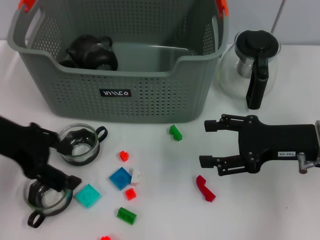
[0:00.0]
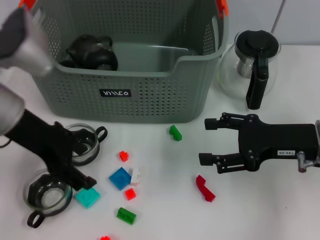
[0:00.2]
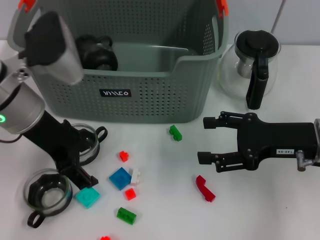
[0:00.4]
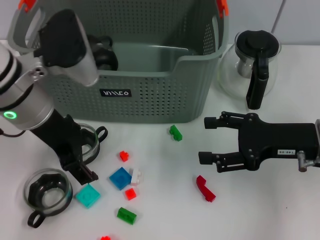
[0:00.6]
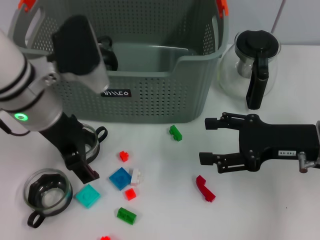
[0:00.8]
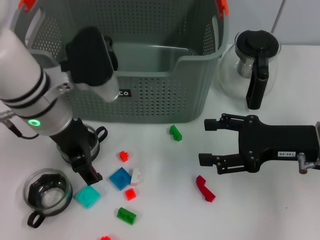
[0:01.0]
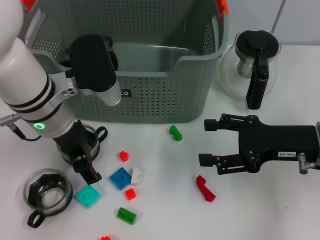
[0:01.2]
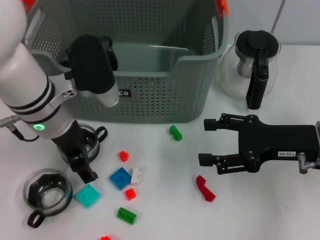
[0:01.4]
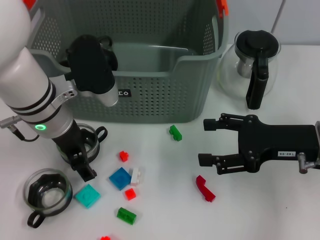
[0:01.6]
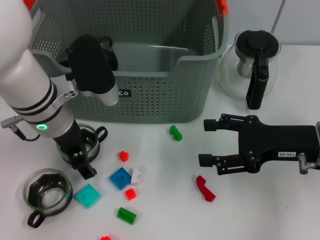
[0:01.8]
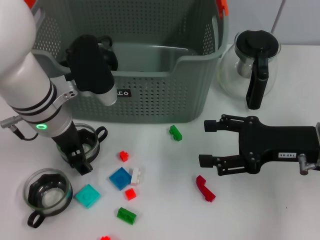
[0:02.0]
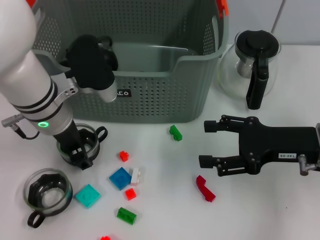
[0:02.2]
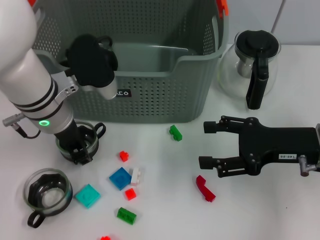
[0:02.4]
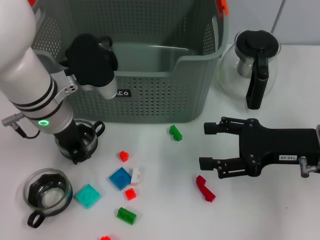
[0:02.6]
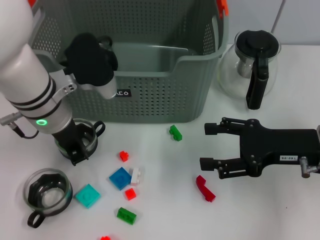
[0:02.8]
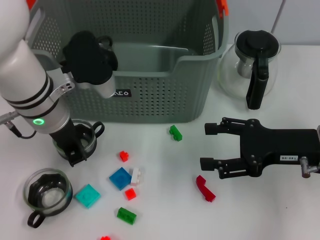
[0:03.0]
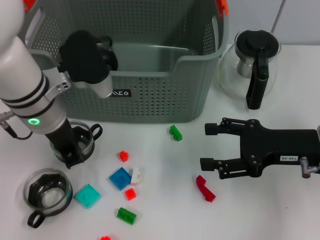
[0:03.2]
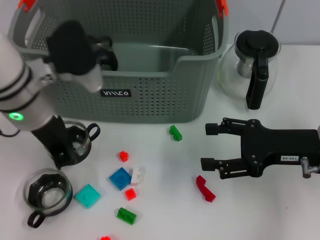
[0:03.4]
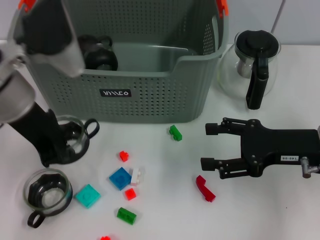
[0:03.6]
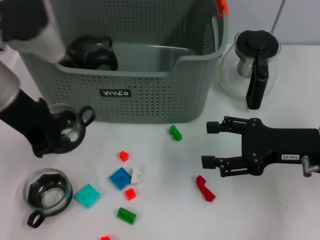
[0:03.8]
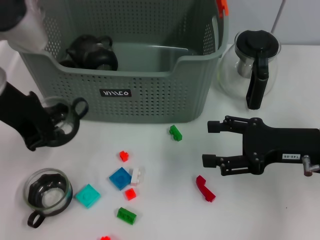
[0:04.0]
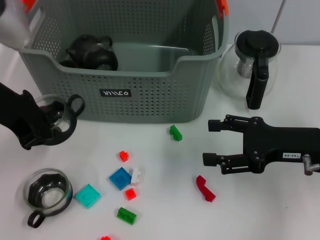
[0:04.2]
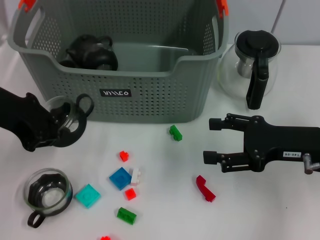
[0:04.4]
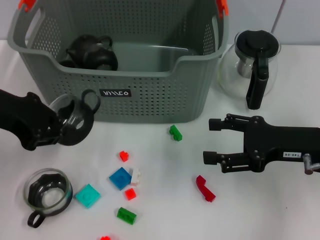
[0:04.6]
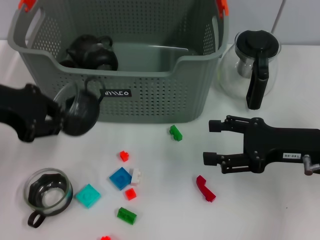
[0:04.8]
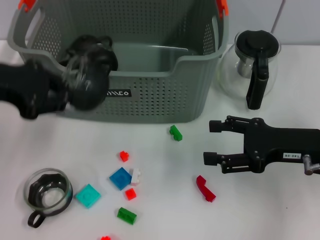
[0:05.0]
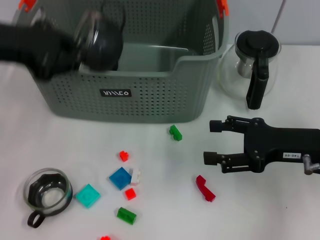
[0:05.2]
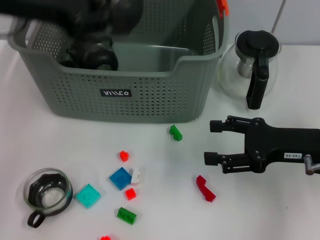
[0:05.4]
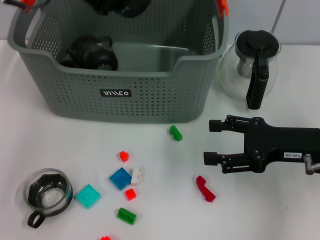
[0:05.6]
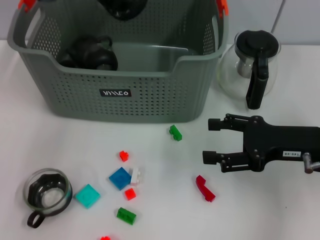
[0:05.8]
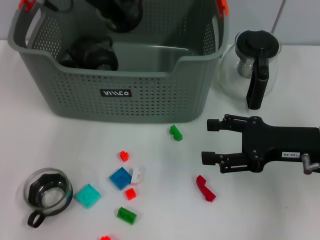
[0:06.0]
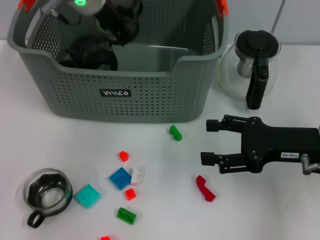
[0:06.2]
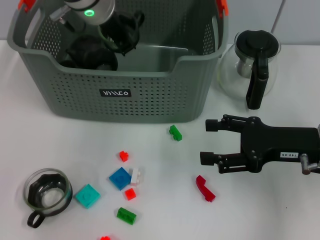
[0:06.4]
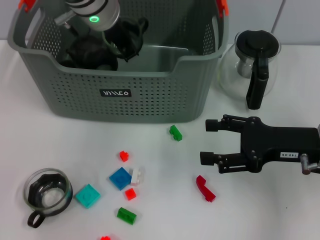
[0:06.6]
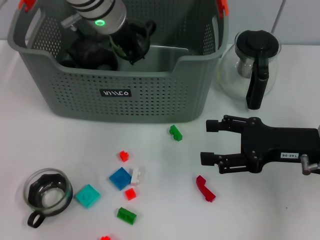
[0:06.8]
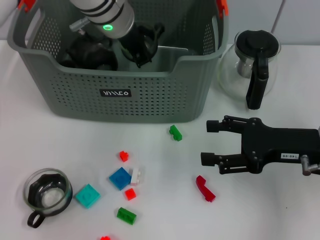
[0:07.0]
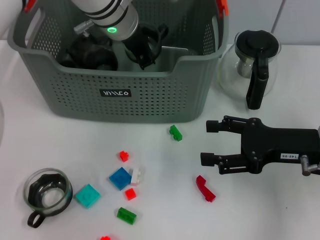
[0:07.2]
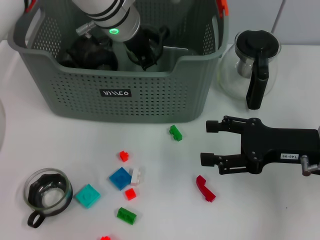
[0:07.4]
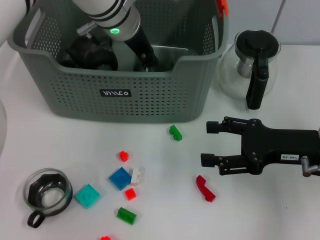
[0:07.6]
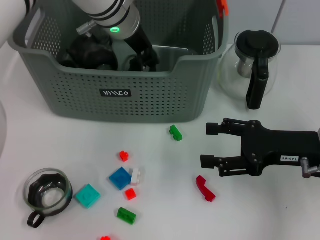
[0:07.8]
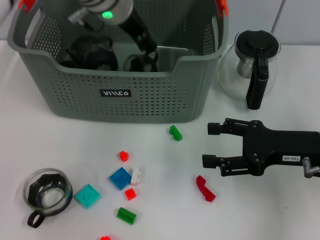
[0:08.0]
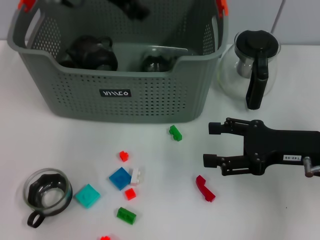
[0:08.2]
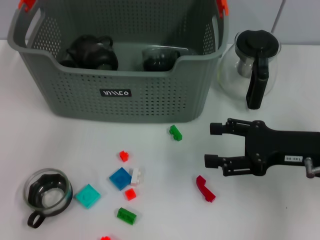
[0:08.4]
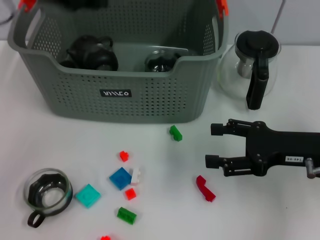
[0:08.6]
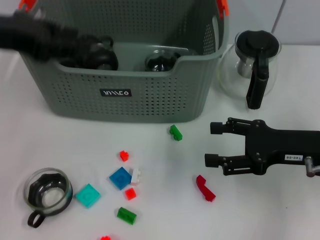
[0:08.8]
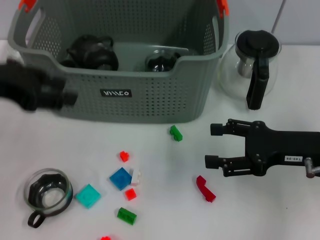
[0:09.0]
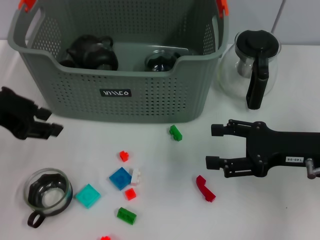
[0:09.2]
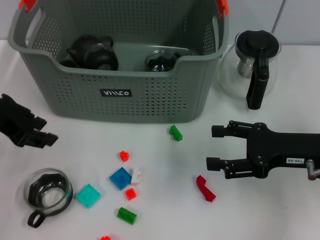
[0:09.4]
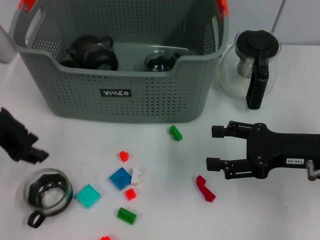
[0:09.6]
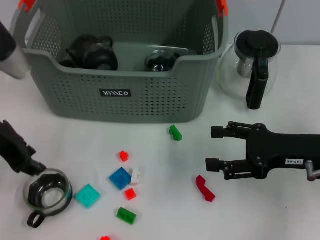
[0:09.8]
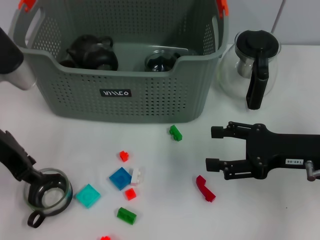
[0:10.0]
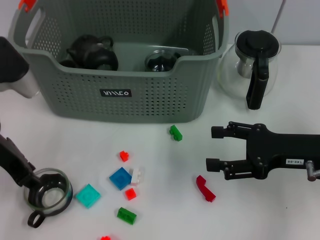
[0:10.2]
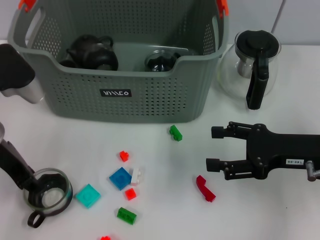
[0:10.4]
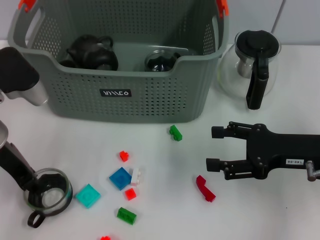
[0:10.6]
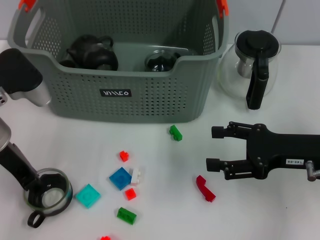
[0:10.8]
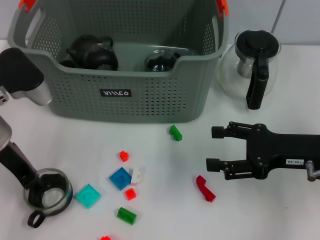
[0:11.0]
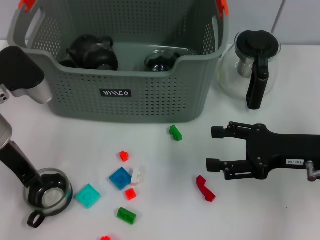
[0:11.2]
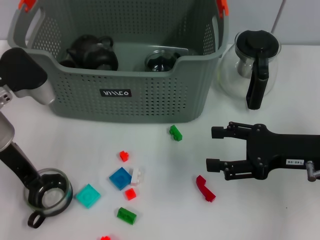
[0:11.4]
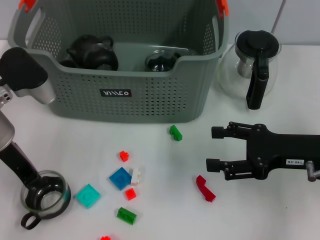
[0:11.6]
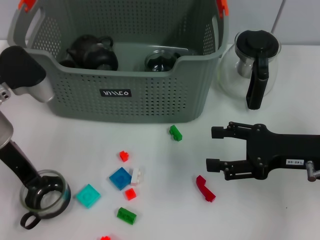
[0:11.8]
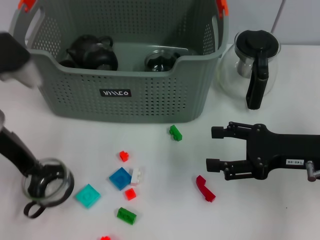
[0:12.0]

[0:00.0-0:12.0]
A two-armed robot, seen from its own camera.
Task of the whole recording: pick up the teacup on the table and place it into the storage bin, pick up the block on the table and place it into the storage bin.
Step, 0:00.0 to 0:02.6: Grasp the cup with left gripper.
Step, 0:02.8 to 0:08.0: Place the cup in the storage box with left gripper.
Step, 0:08.2 to 0:11.4: Grasp the cup with left gripper.
0:00.0 to 0:01.6: The left gripper goes about 10 cm to the right.
0:01.6 to 0:03.0: The left gripper closes.
0:03.0 to 0:04.4: The left gripper is displaced to the left and upward by approximately 10 cm.
0:04.4 to 0:06.0: The left gripper goes some 20 cm forward and to the right.
0:06.0 to 0:07.6: The left gripper moves to the right and downward, approximately 10 cm.
0:07.6 to 0:09.0: The left gripper travels to the left and backward by about 25 cm.
0:09.0 to 0:10.4: The left gripper heads downward, covering roughly 10 cm.
0:10.4 to 0:12.0: The left gripper closes.

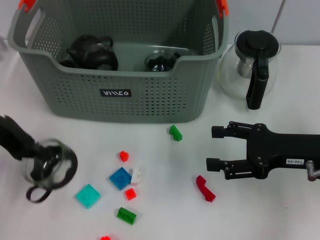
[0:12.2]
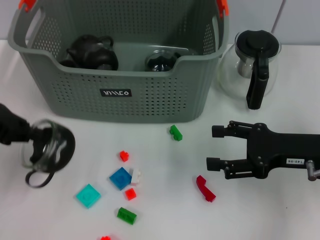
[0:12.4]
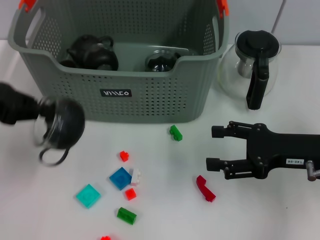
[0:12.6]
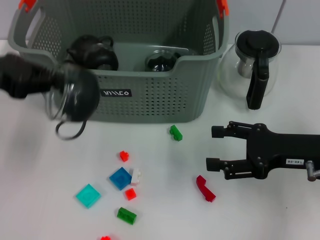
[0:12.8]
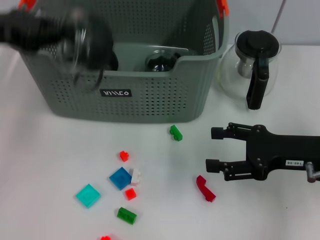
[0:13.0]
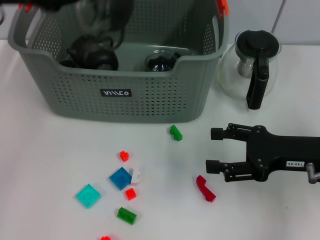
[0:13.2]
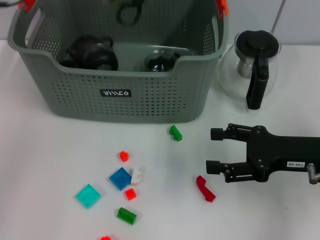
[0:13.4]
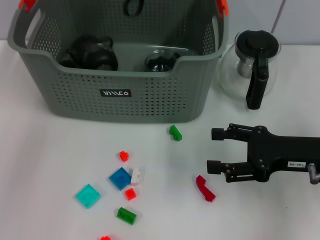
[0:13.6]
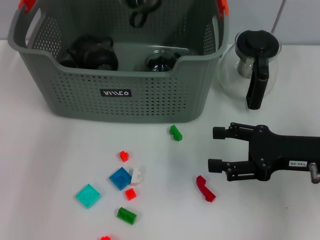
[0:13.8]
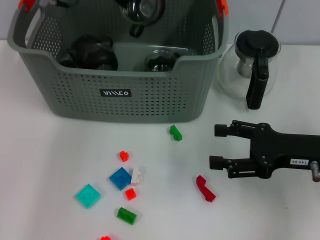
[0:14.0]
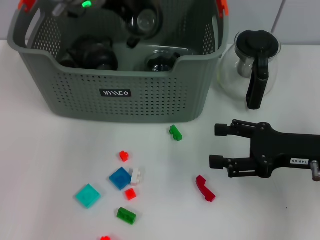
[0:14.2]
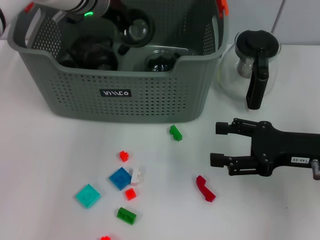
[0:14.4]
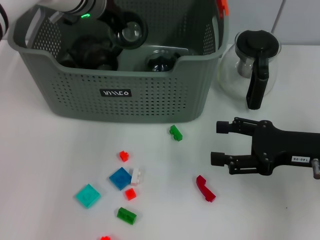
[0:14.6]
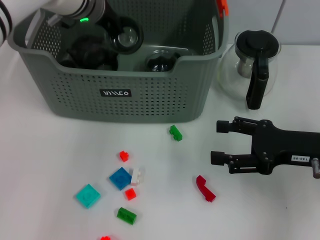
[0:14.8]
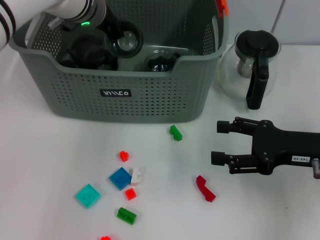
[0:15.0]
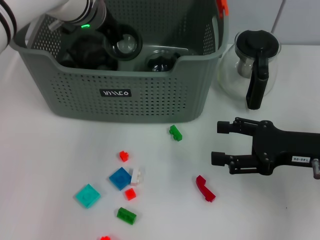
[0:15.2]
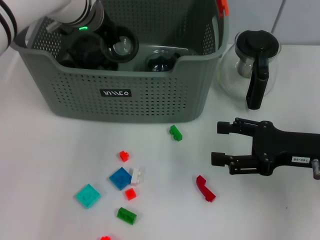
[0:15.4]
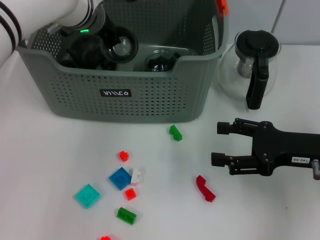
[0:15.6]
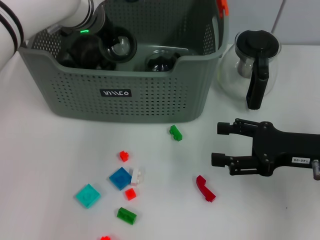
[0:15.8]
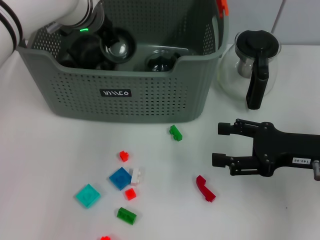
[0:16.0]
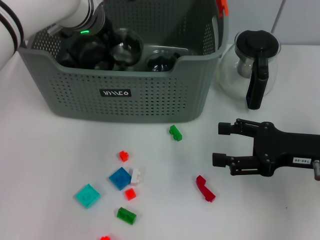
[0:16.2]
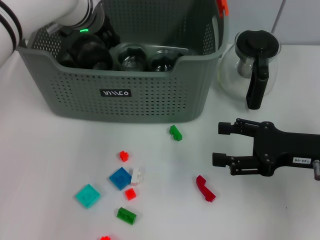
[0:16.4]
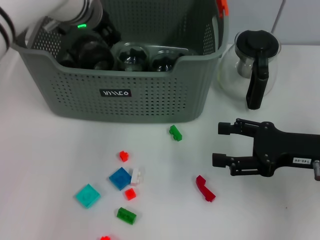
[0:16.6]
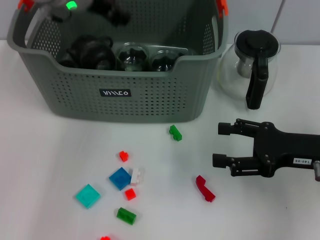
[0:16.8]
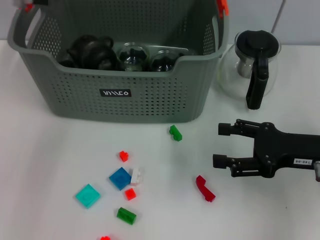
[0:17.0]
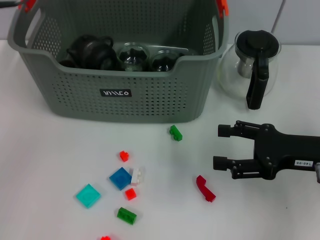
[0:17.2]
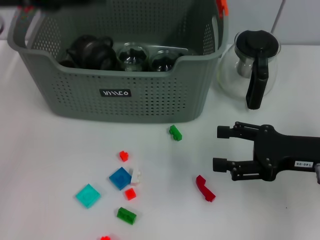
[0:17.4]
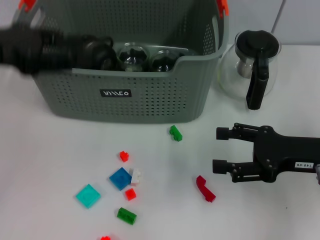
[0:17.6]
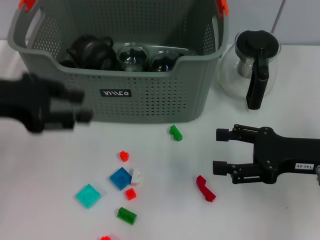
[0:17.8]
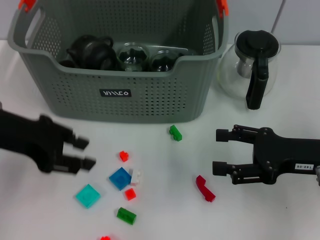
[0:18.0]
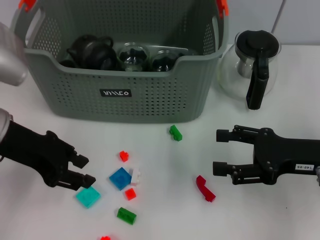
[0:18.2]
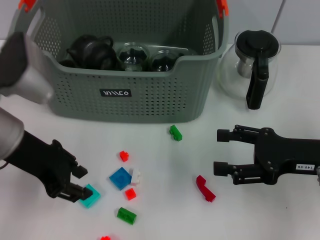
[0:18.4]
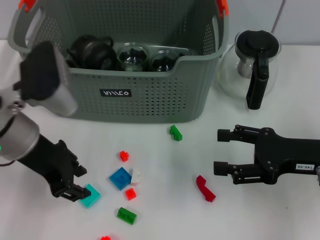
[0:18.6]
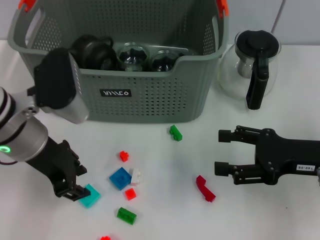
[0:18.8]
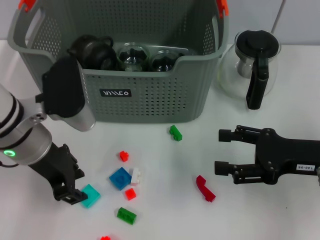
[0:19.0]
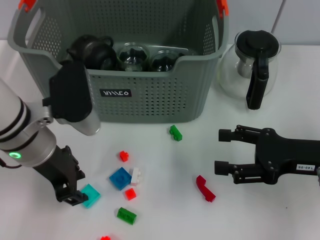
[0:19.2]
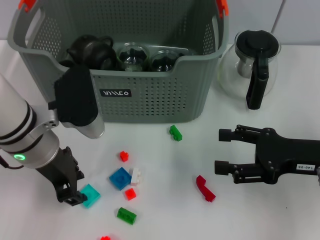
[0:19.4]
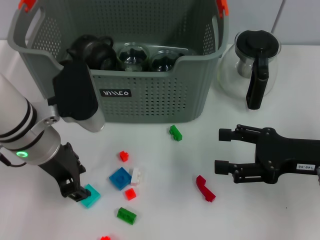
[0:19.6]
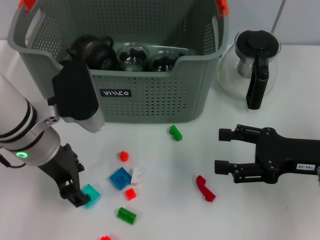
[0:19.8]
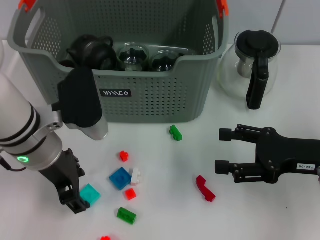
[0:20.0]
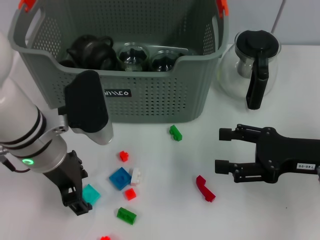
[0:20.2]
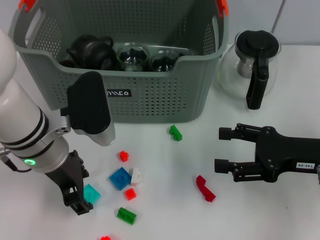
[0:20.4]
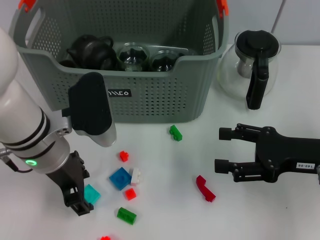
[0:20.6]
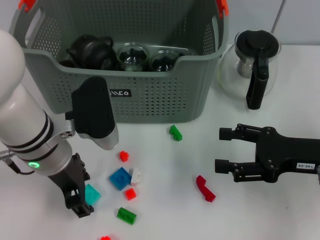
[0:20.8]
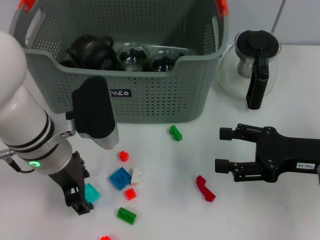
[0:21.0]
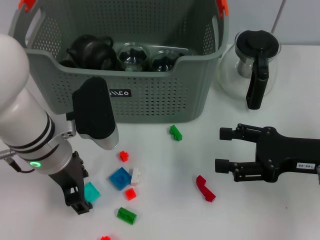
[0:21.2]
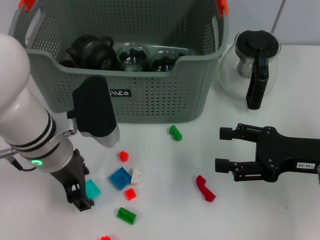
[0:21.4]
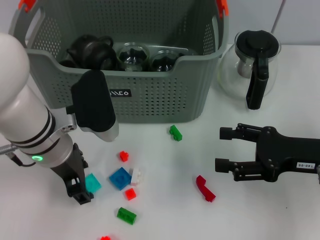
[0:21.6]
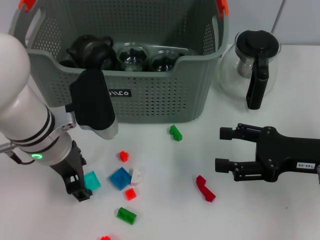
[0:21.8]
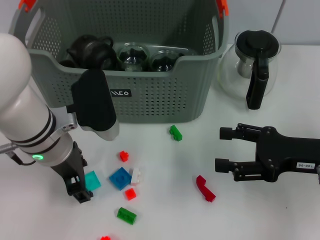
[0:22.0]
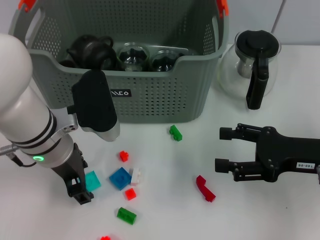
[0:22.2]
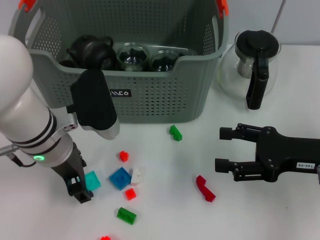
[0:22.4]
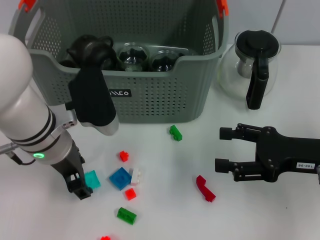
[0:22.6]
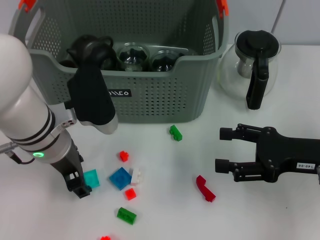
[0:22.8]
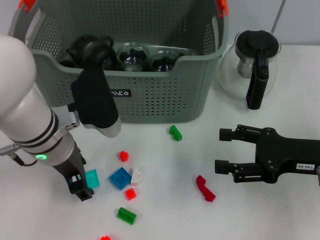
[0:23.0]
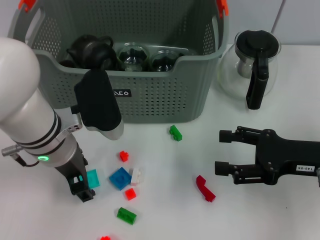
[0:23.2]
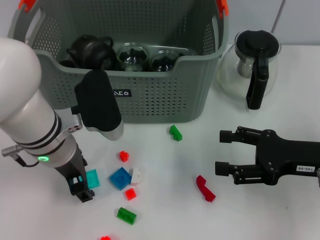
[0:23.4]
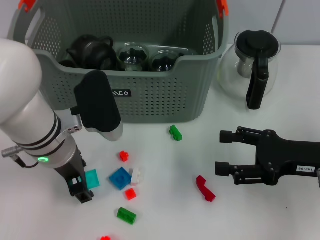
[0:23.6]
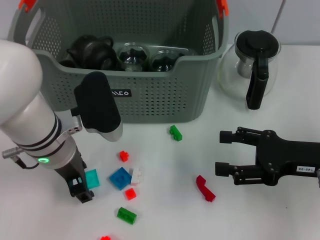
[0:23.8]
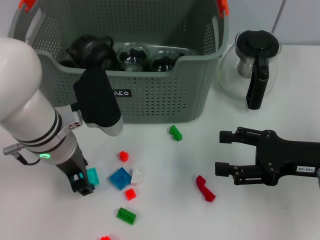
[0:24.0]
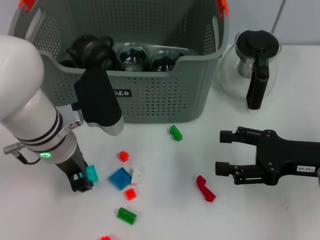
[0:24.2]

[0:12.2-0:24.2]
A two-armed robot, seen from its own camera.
Task of the whole recording: pick up the teacup on the table and place it into the storage bin, pick up the block on the table and place it into the storage bin.
Step, 0:12.2 to 0:16.6: Place the cup in the storage box with left gripper.
0:12.2 to 0:13.8: The left gripper travels forward, to the right and upward by approximately 20 cm.
0:13.8 to 0:15.2: The left gripper goes some 10 cm downward.
0:15.2 to 0:16.6: The left gripper opens.
0:16.6 to 0:18.2: The left gripper shifts about 20 cm backward and to the left.
0:18.2 to 0:19.8: The left gripper shifts about 5 cm to the right.
0:19.8 to 0:22.6: The grippers move only a little.
0:22.6 to 0:24.2: Both grippers stay put.
